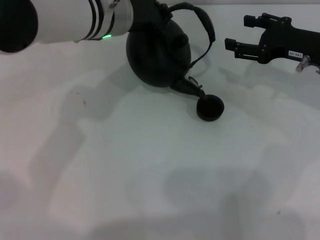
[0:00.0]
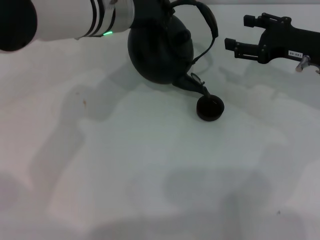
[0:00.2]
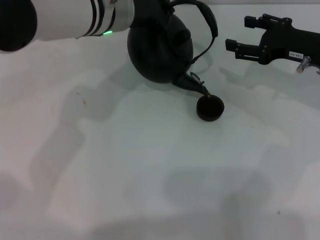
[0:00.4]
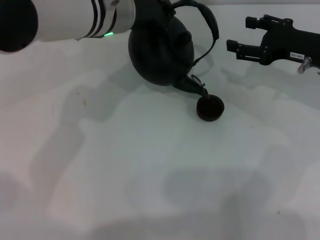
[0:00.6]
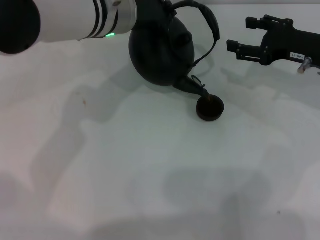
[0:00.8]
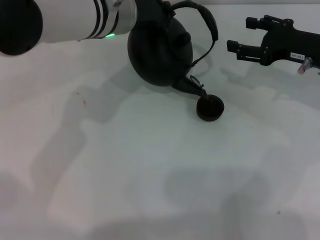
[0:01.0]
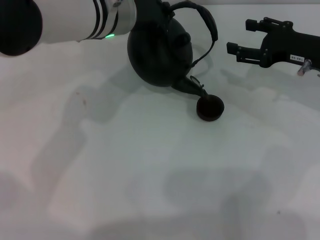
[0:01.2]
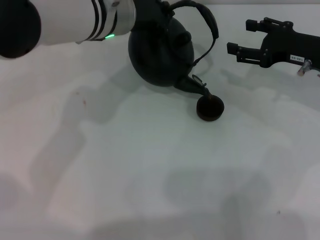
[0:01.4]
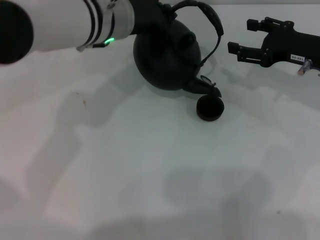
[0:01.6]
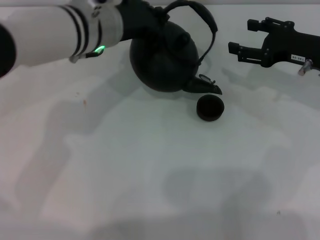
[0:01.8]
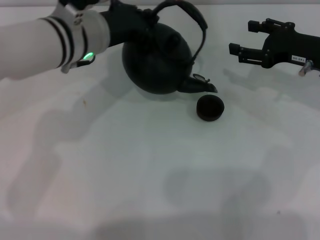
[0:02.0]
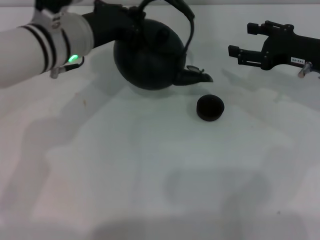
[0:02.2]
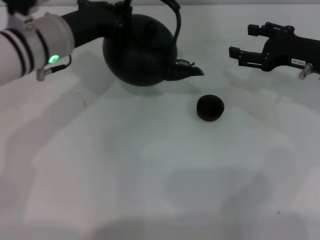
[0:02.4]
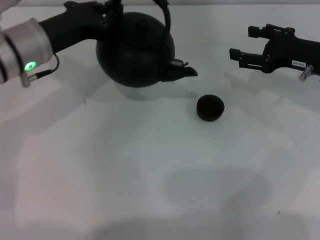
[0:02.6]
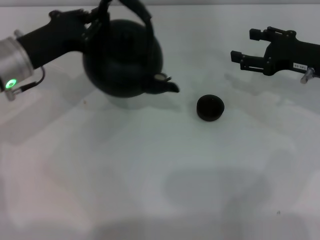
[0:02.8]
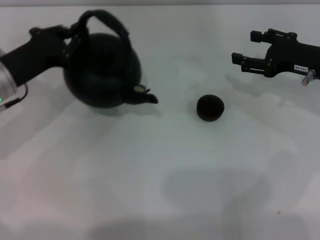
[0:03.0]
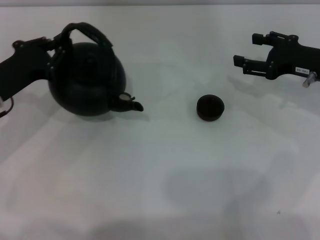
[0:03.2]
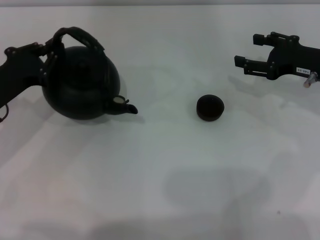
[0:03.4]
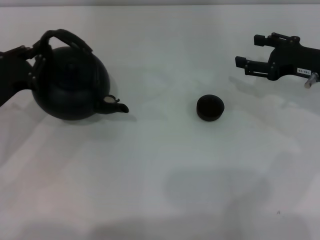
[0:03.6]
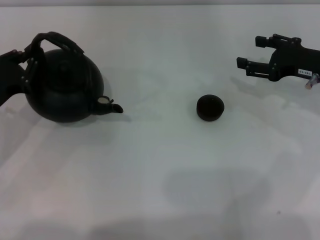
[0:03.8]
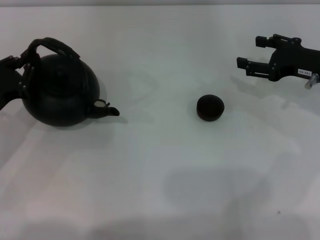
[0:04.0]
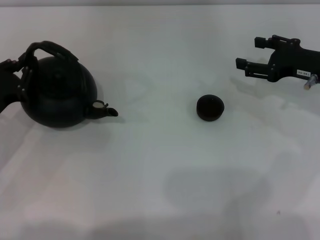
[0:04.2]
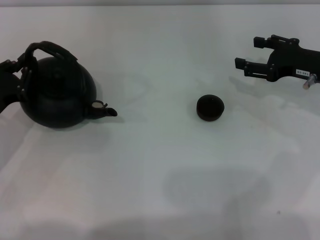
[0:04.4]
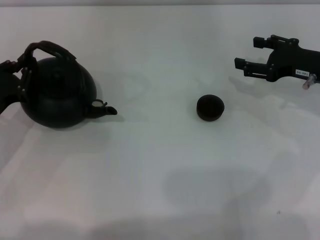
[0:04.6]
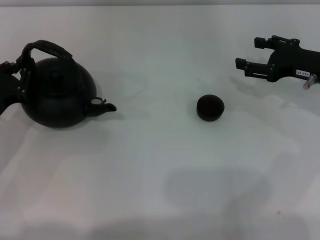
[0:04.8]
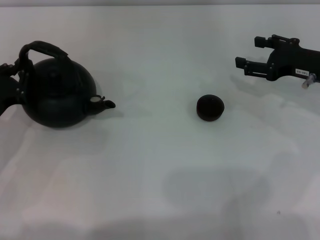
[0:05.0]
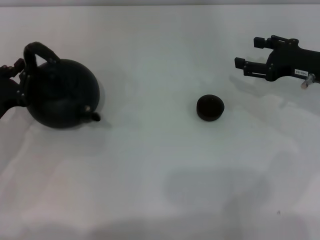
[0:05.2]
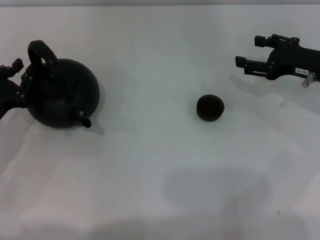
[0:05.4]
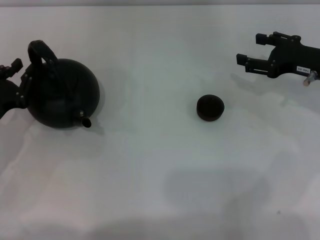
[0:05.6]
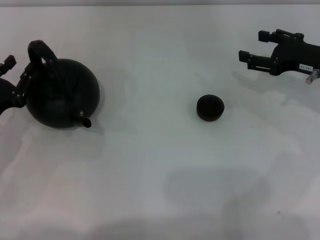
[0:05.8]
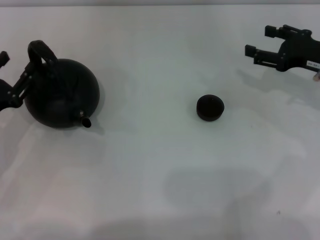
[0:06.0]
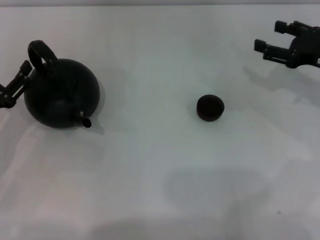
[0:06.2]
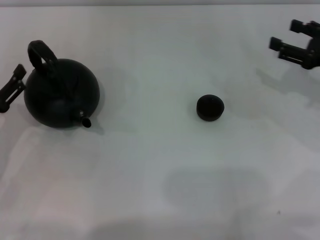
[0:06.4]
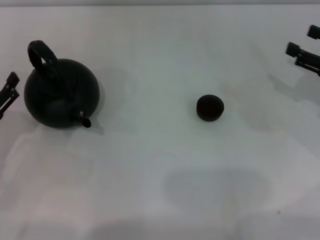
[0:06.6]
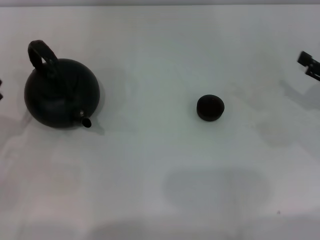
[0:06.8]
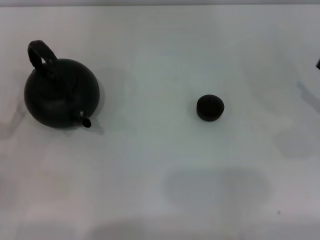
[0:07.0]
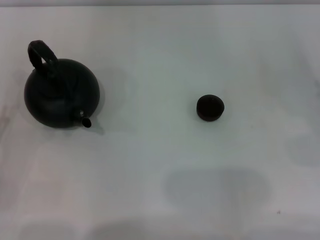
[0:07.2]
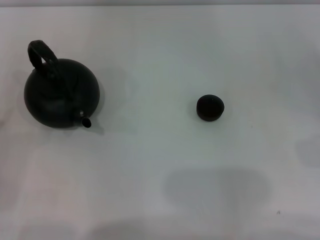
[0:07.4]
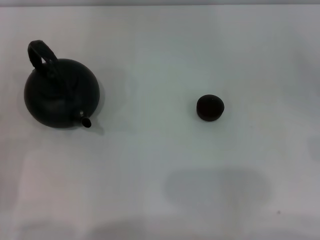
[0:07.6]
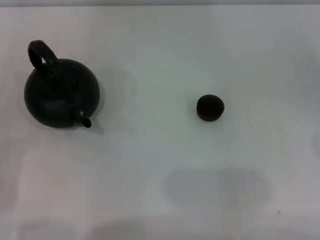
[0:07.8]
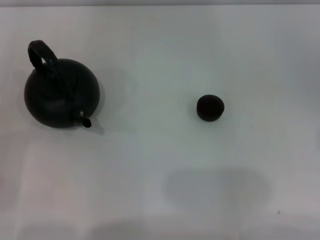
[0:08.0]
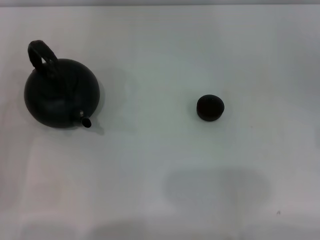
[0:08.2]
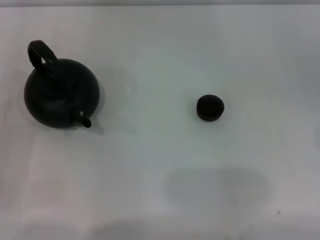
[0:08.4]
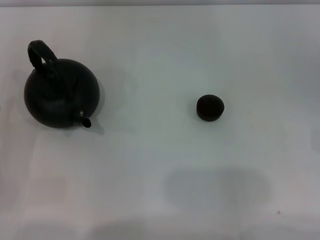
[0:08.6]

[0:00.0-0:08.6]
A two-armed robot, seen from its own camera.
Task of the whole recording: Grasp the handle of the teapot with one hand and pour tea into the teacup.
Step, 0:00.0 to 0:02.2: Pour tea into the teacup with the left gripper.
Step, 0:02.4 to 0:05.8: Put down the teapot with the left gripper.
0:00.0 to 0:01.4: Neither gripper changes place.
0:01.4 to 0:02.8: The left gripper is displaced to the left and downward by roughly 15 cm.
0:02.8 to 0:04.4: The left gripper moves backward, to the left and downward, approximately 15 cm.
0:04.4 to 0:05.8: There are only small adjustments of the grippers.
0:05.8 to 0:07.2: The right gripper moves backward and to the right, approximately 15 cm, while the left gripper is displaced backward by roughly 10 cm, and opens.

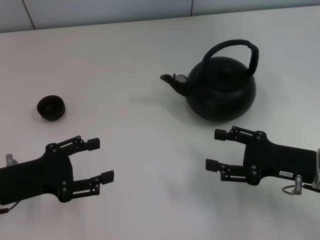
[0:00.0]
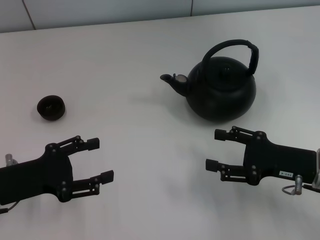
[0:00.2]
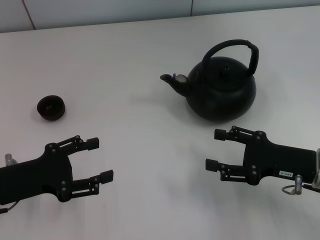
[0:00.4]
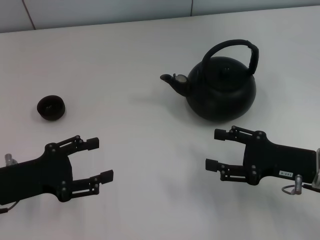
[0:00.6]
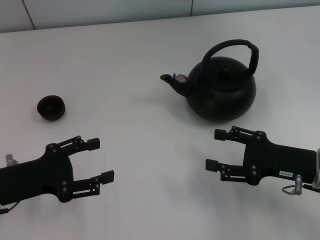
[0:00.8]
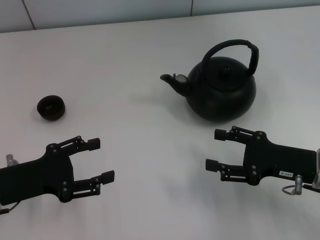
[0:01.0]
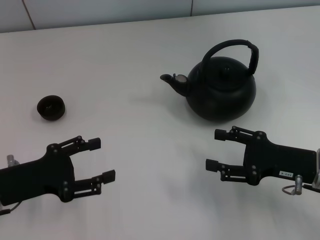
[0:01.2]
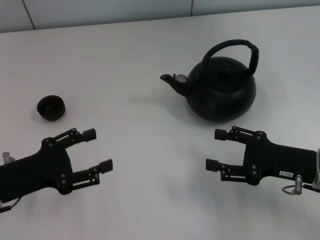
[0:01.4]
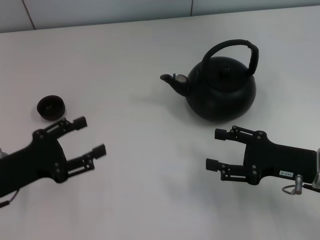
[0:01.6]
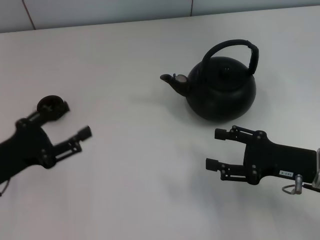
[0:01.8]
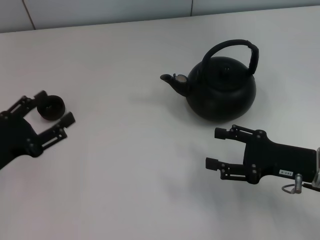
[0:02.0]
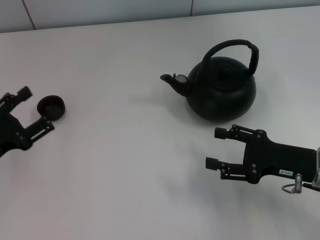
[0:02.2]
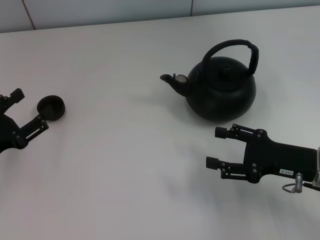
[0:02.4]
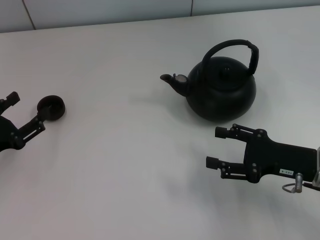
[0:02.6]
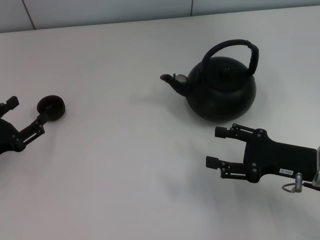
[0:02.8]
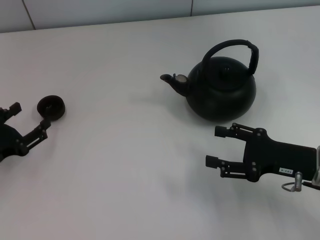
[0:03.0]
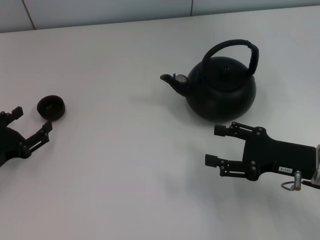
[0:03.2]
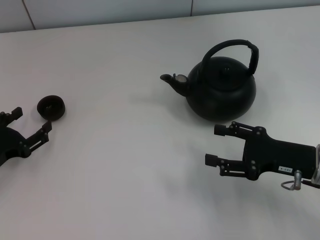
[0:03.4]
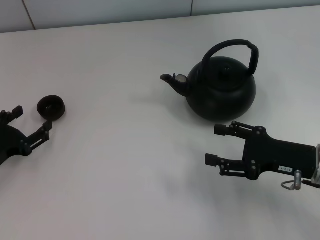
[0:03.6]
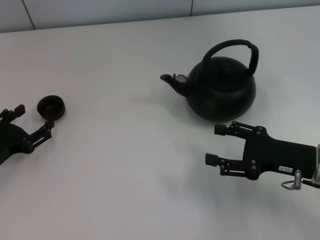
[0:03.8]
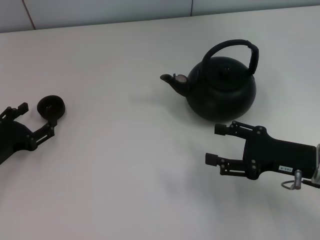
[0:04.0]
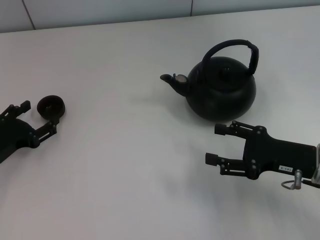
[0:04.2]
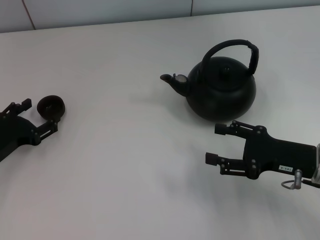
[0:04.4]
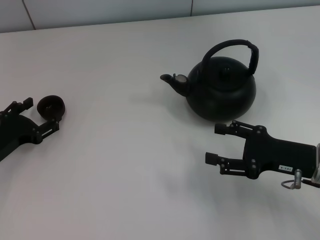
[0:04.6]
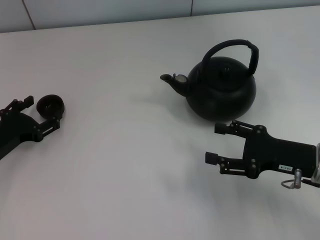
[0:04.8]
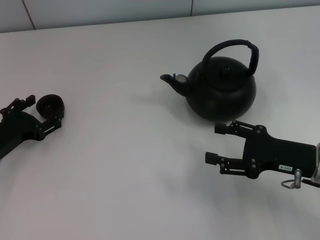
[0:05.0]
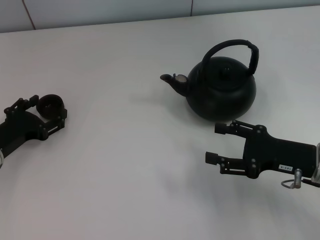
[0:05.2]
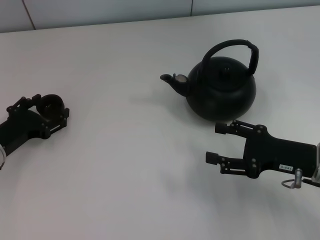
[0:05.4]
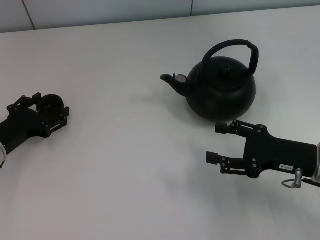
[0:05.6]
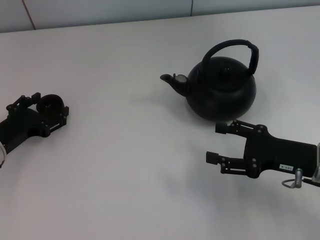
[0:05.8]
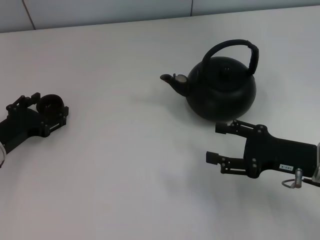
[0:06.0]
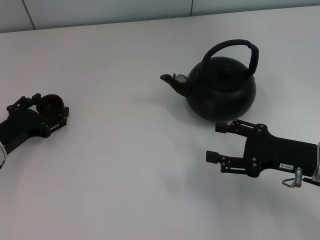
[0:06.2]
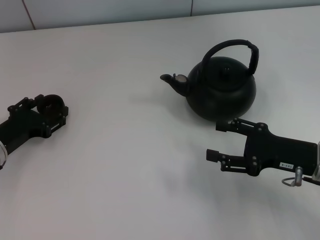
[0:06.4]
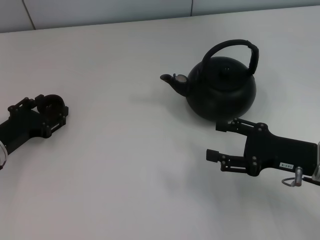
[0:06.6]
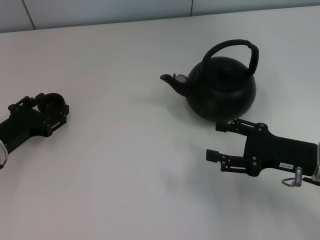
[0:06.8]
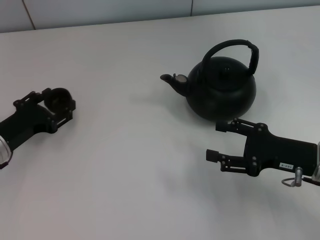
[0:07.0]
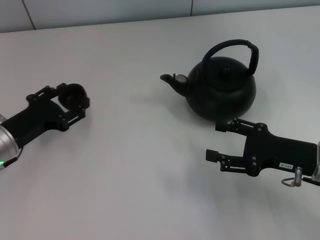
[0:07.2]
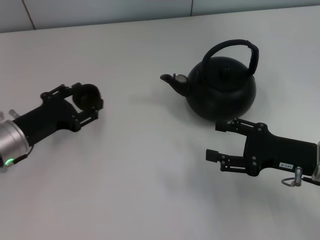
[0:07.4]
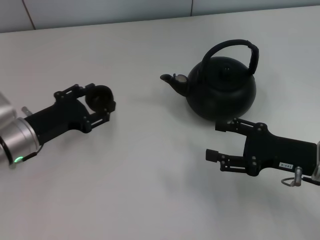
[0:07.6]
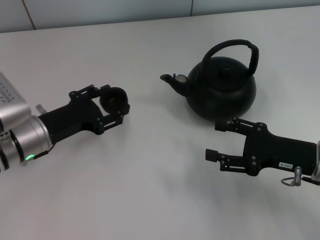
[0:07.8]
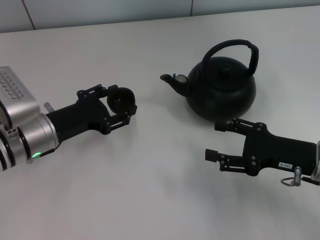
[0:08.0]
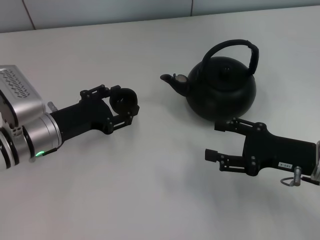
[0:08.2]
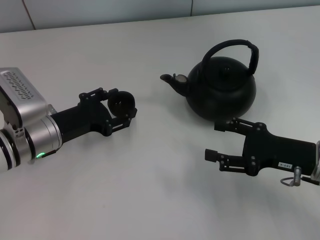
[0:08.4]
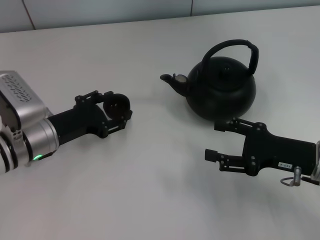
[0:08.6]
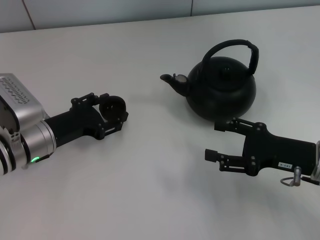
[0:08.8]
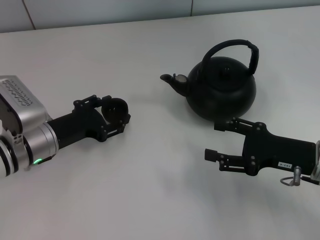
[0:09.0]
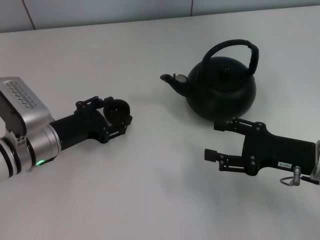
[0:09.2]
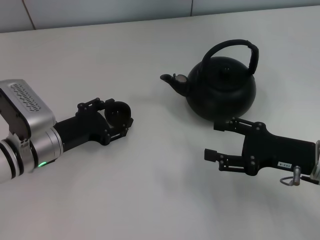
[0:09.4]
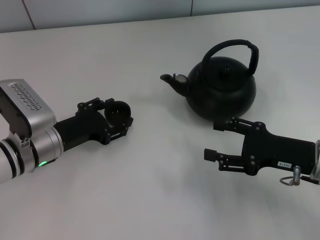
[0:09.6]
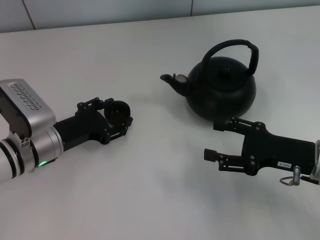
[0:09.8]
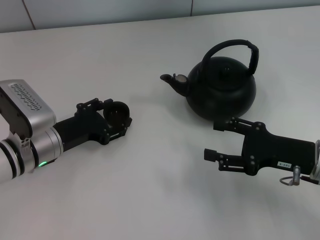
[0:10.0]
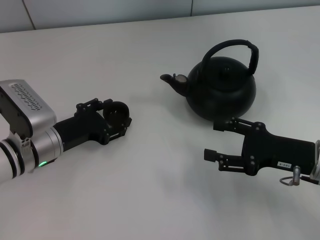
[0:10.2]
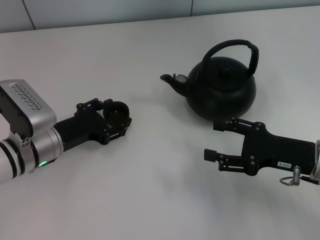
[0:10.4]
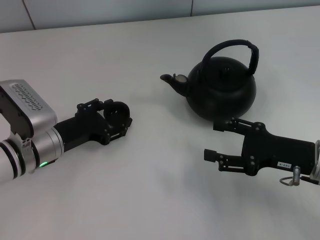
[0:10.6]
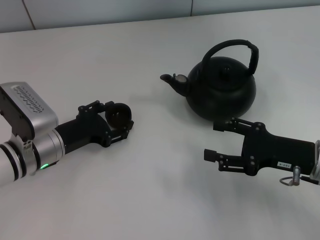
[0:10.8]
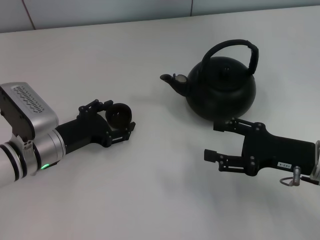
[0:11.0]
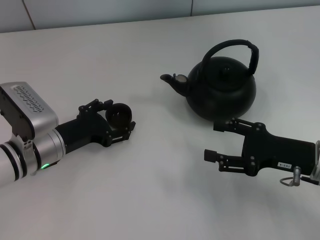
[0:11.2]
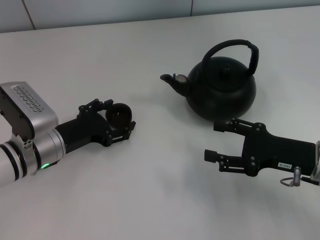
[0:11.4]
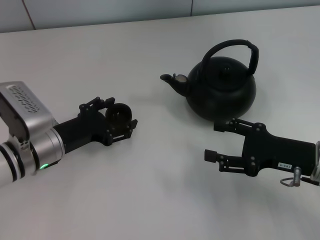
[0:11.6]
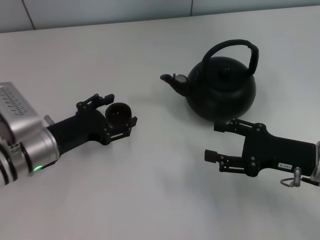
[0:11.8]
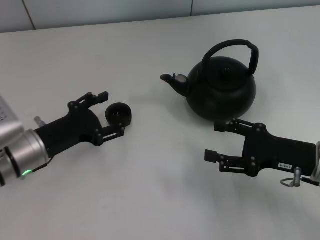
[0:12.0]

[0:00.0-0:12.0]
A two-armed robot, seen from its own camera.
Task of the whole recording: Grasp the handle of the teapot with one hand and pour tea into the teacup.
Step, 0:00.0 to 0:07.8: Pick up the teacup with the left gripper.
0:00.0 to 0:01.6: There are only small adjustments of the grippers.
0:01.6 to 0:03.0: The left gripper ends up roughly 5 cm from where it was.
0:03.0 to 0:04.4: The grippers stay close to where they were, moving slightly.
0:04.4 to 0:06.0: The grippers move only a little.
0:06.0 to 0:07.6: The left gripper goes approximately 5 cm to the right, and closes its fingers.
0:07.6 to 0:09.0: There are only small adjustments of the grippers.
0:09.0 to 0:10.4: Both grippers stay put.
0:10.4 to 0:12.0: The left gripper opens up.

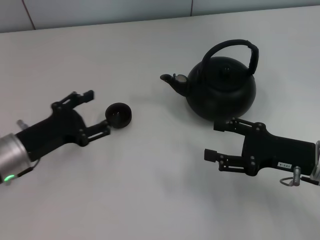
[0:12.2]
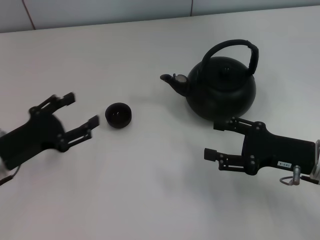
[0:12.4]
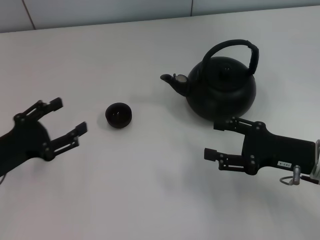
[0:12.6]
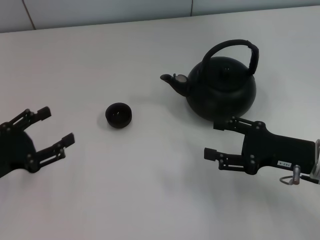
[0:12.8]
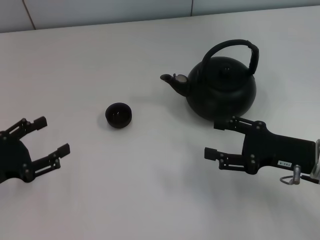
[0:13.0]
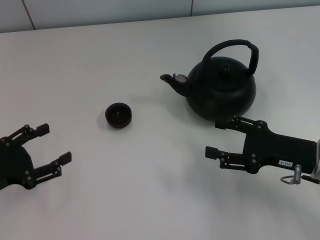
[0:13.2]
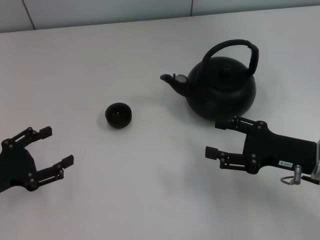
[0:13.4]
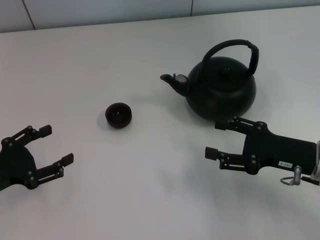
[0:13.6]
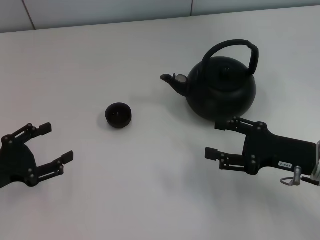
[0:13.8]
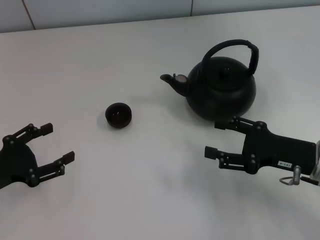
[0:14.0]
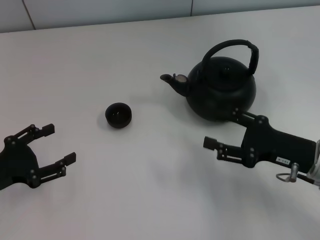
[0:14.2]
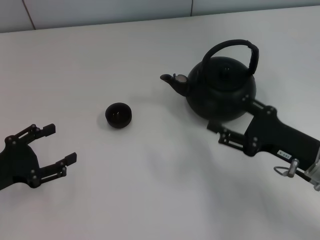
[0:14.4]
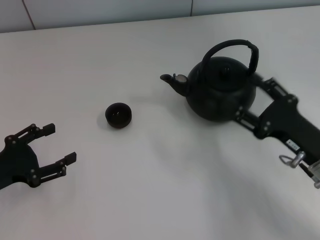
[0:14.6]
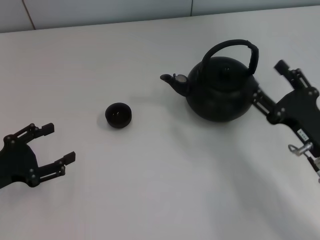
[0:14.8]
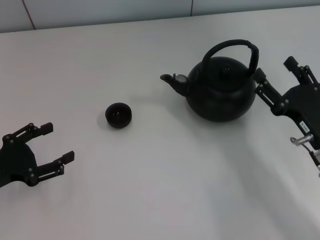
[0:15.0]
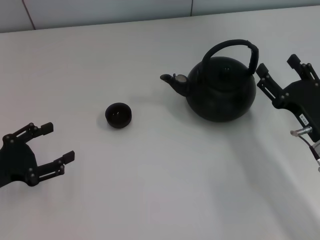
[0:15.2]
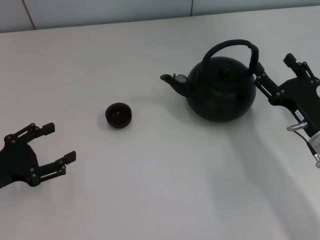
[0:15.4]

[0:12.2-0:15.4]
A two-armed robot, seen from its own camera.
Task of the whole recording: Grasp the handle of the teapot with one hand and pour tea into the teacup.
0:12.2 to 0:13.8: The left gripper shifts some 10 cm to the left and backward.
